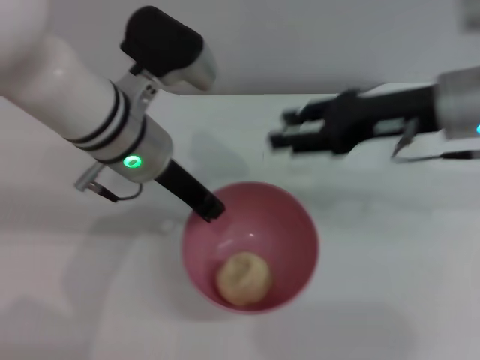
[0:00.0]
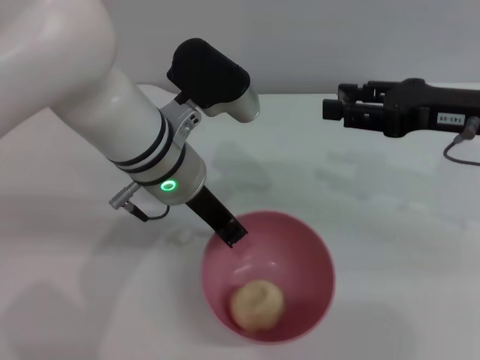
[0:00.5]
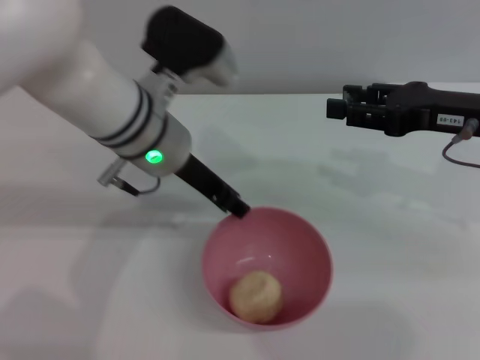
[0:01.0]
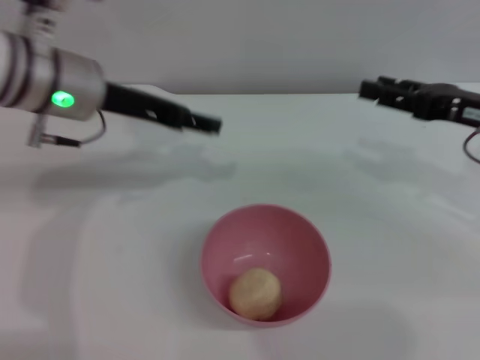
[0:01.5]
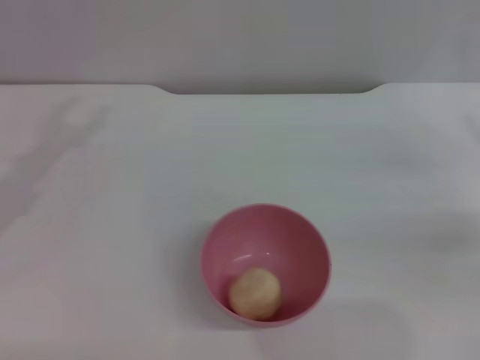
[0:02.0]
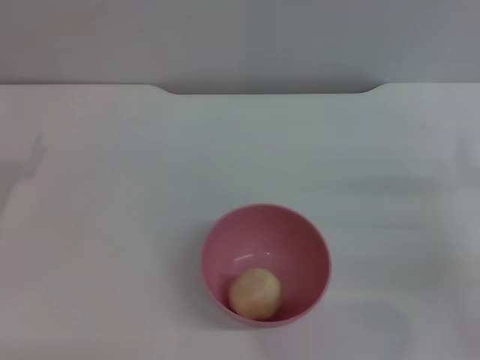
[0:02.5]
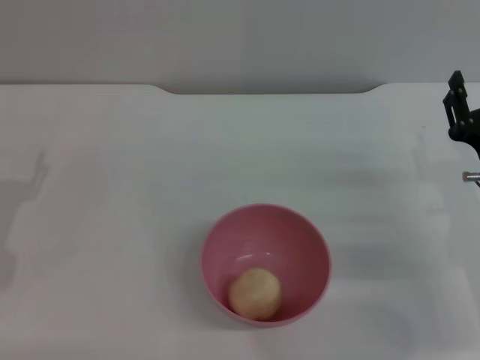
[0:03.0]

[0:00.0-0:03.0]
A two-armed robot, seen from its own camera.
Task of the whole recording: put the egg yolk pastry into the pink bowl and pour it out repeatedly.
Step, 0:00.5 to 0:01.5: Place the bowl on the table.
0:00.0 to 0:01.5: The right gripper heads to the right, covering roughly 10 cm. The left gripper heads to the left, covering approximately 5 cm, and opens.
0:01.5 to 0:03.0: The right gripper moves downward and backward, roughly 10 cm. Meanwhile the left gripper moves downward, to the left and backward, about 25 cm.
